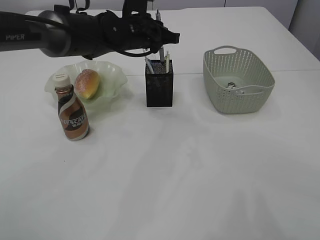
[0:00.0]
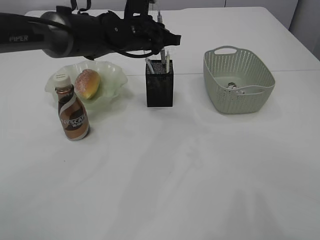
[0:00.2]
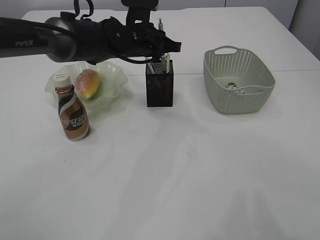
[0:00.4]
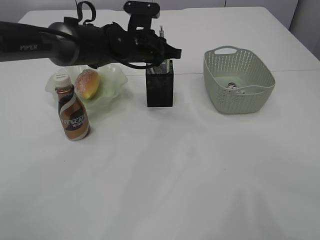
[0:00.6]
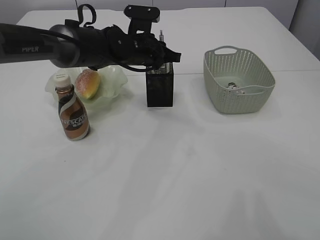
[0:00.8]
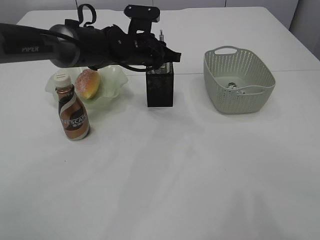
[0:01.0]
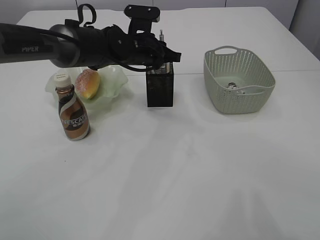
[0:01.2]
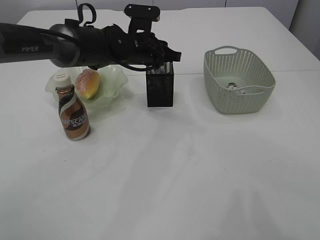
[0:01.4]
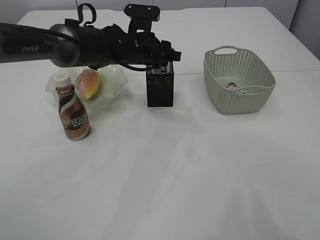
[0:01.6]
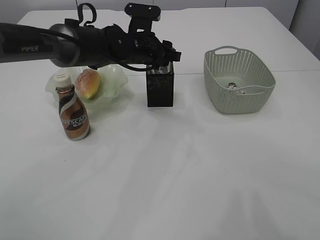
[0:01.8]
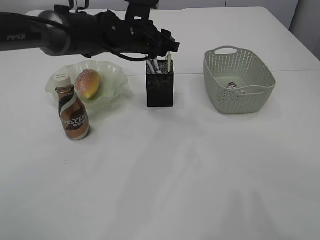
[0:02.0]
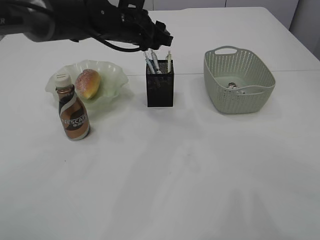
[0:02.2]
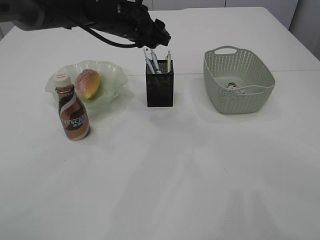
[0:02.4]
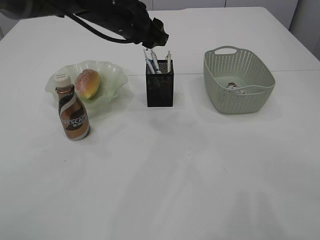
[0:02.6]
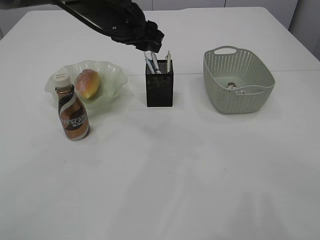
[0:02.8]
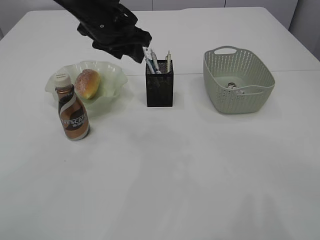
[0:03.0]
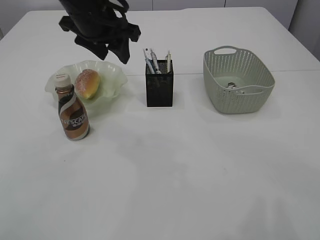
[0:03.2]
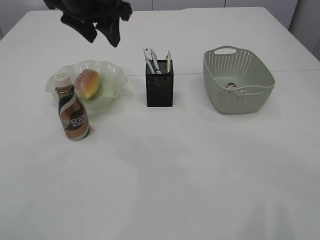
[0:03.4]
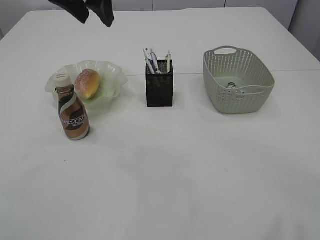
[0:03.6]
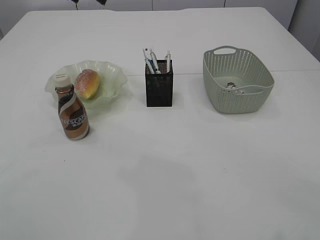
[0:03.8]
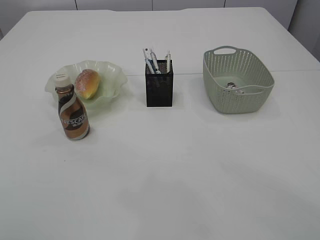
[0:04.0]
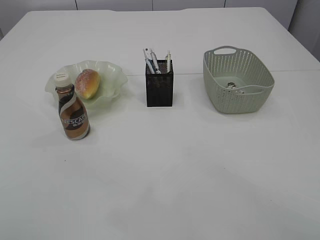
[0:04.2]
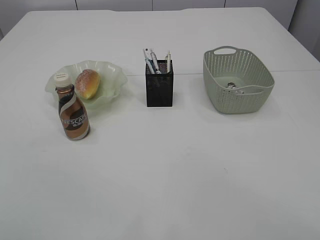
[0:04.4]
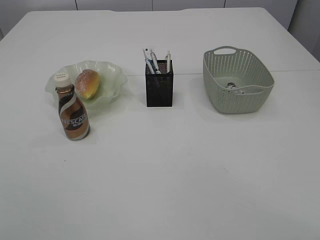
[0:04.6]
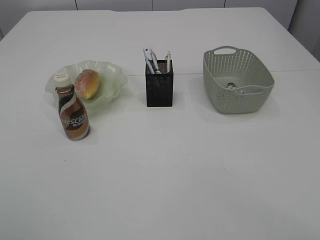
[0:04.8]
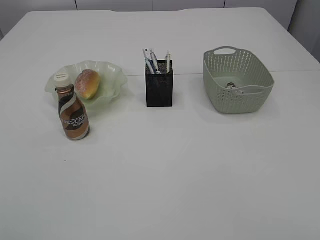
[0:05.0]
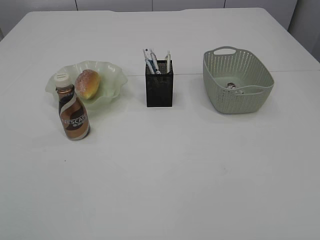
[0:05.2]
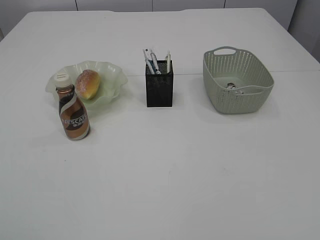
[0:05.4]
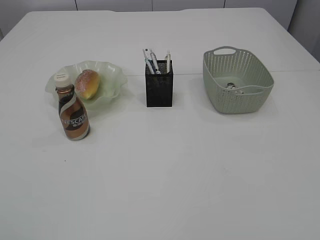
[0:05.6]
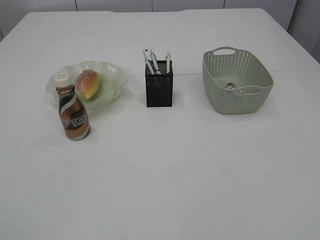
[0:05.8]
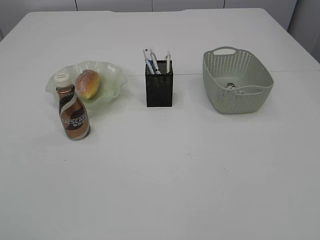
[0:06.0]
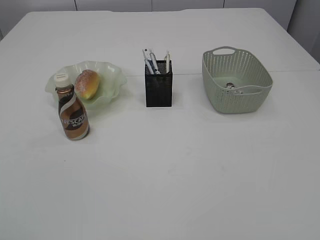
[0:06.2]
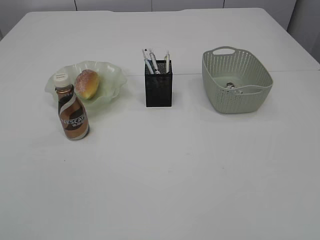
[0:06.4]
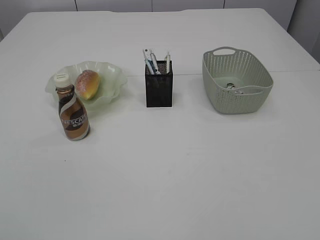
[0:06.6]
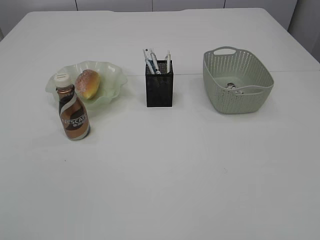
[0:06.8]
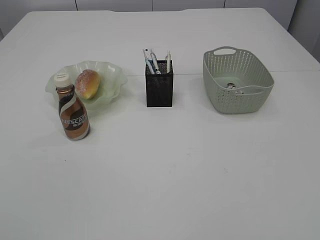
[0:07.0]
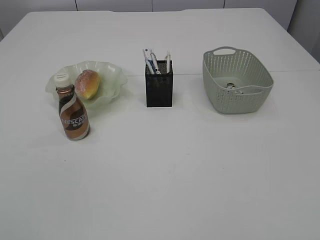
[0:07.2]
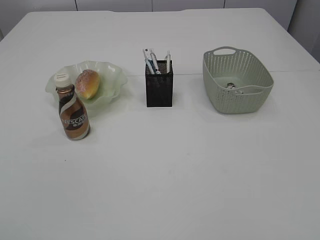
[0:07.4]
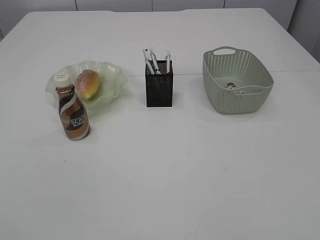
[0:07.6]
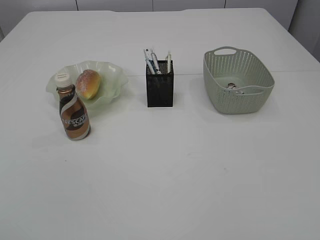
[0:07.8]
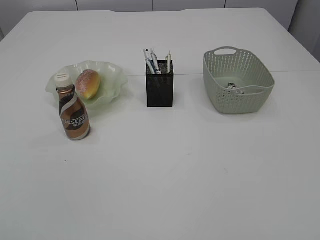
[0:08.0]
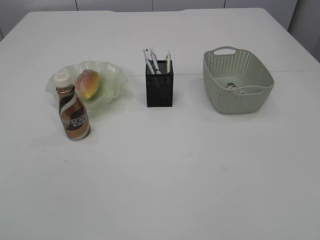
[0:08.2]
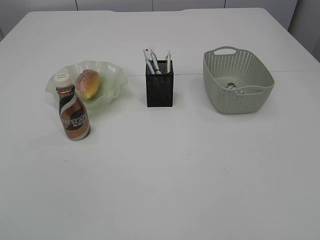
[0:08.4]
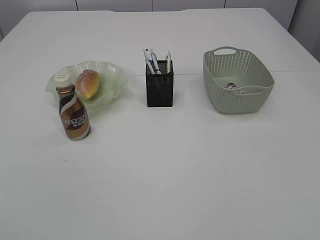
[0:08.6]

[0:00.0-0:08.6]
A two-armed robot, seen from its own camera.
Step, 0:00.0 to 0:02.4: Place the pen into the pen holder.
0:00.0 to 0:01.4: There are only small adjustments of the grippers.
0:01.4 to 0:02.8: The left gripper heads upward, covering some 10 cm, and opens its fingers.
0:02.8 to 0:04.4: The left gripper heads upward, backward and to the left, covering about 30 cm; the right gripper shifts some 10 cm backward.
0:04.4 to 0:05.8: The left gripper shifts about 35 cm backward, to the left and downward; the right gripper is displaced backward by roughly 20 cm.
